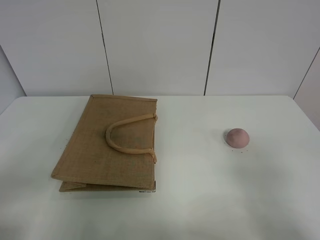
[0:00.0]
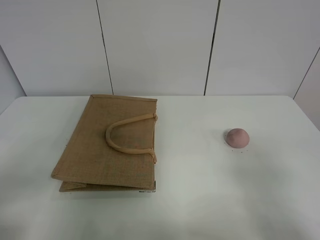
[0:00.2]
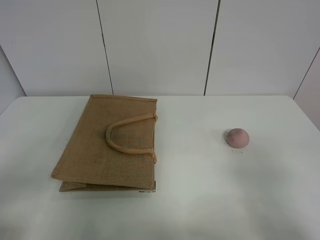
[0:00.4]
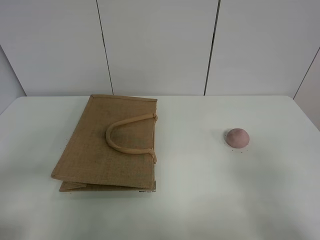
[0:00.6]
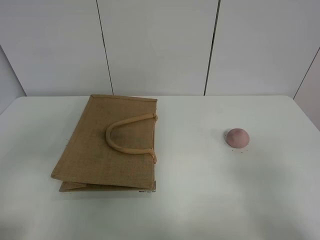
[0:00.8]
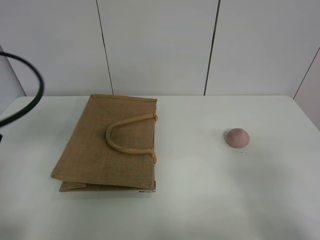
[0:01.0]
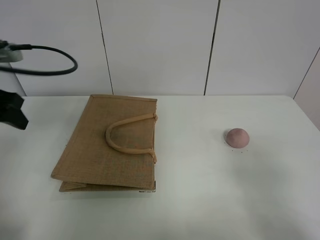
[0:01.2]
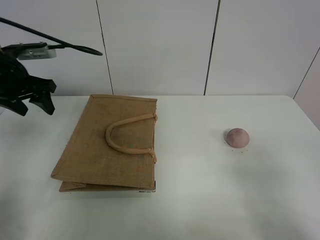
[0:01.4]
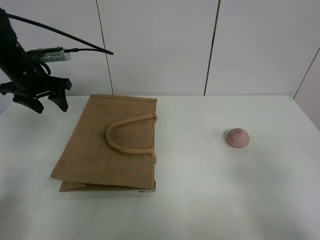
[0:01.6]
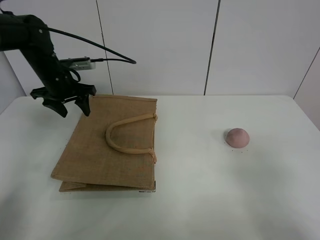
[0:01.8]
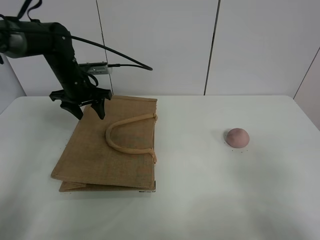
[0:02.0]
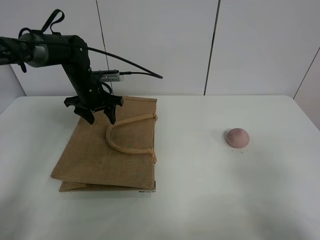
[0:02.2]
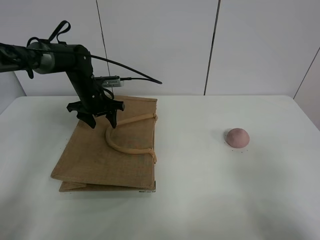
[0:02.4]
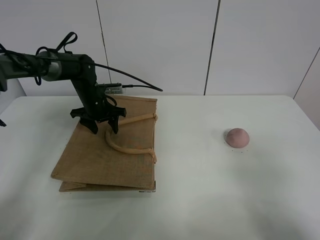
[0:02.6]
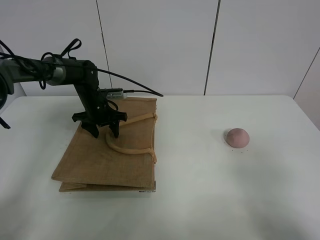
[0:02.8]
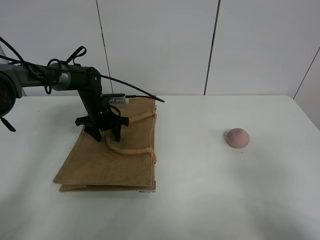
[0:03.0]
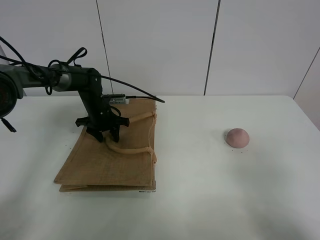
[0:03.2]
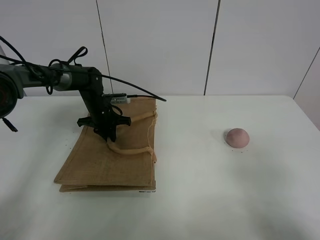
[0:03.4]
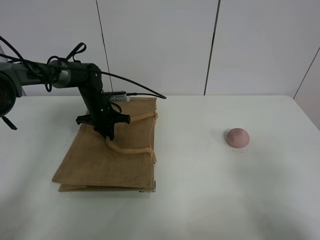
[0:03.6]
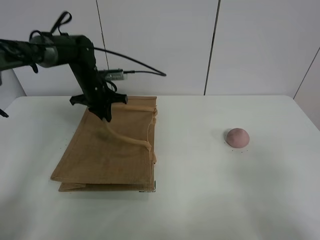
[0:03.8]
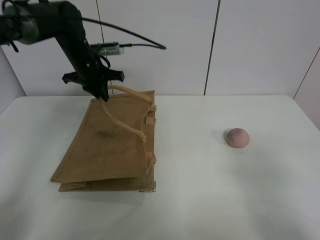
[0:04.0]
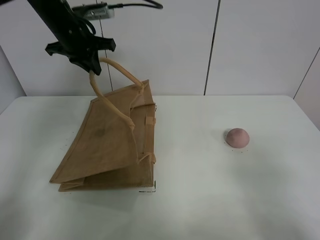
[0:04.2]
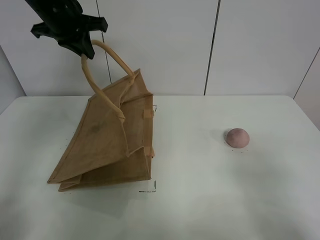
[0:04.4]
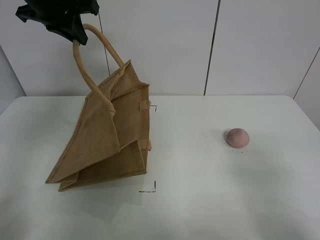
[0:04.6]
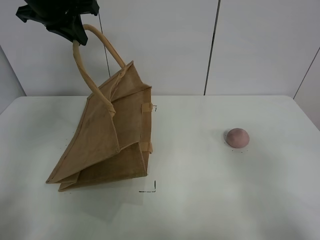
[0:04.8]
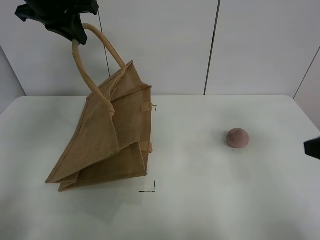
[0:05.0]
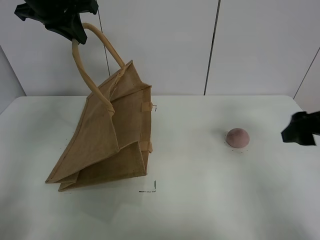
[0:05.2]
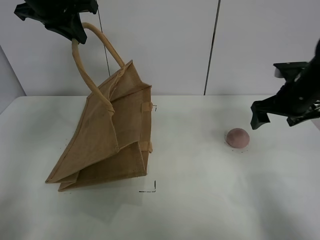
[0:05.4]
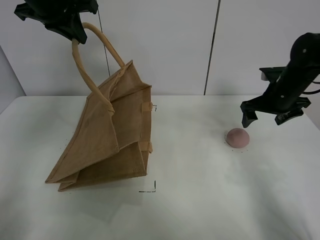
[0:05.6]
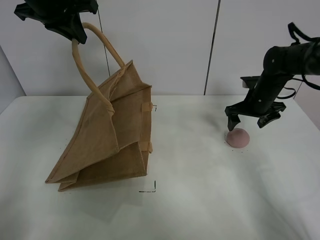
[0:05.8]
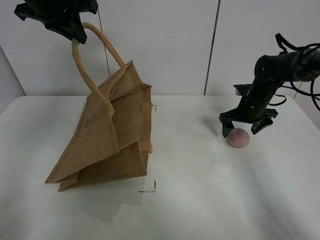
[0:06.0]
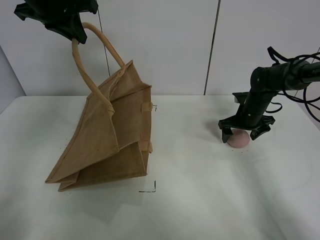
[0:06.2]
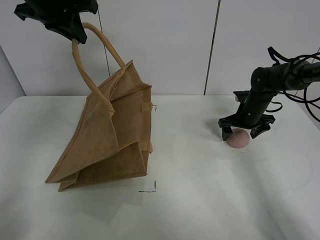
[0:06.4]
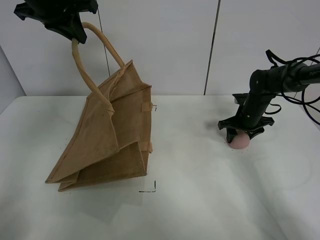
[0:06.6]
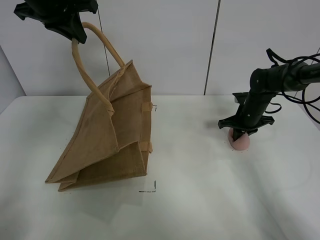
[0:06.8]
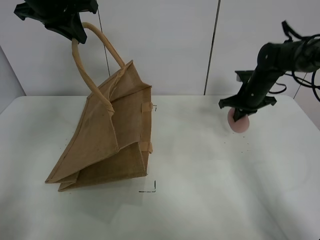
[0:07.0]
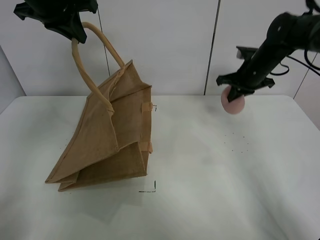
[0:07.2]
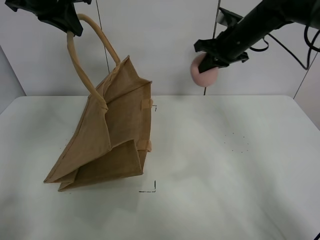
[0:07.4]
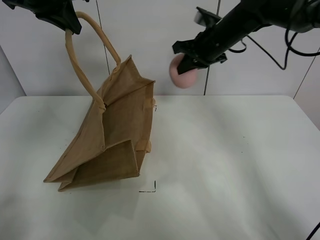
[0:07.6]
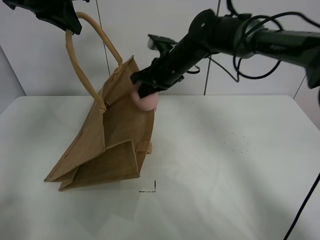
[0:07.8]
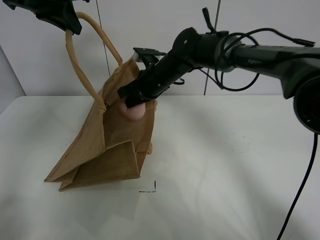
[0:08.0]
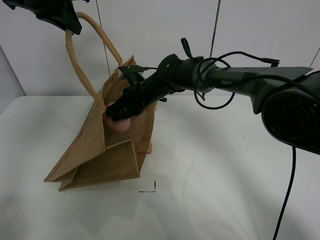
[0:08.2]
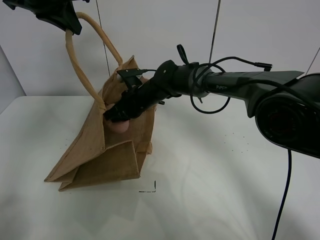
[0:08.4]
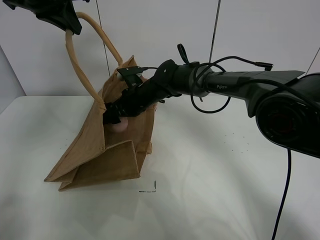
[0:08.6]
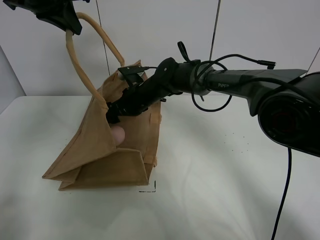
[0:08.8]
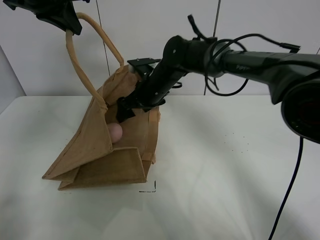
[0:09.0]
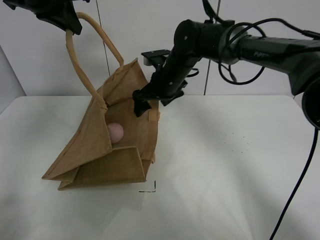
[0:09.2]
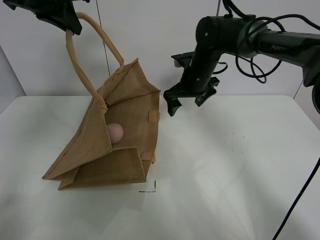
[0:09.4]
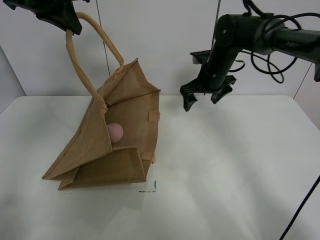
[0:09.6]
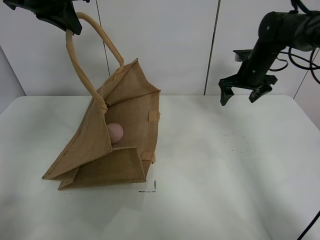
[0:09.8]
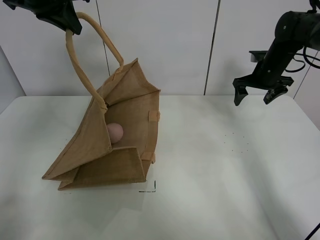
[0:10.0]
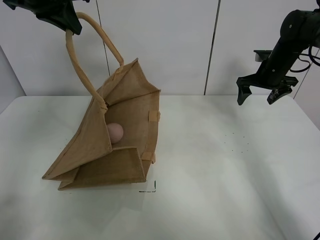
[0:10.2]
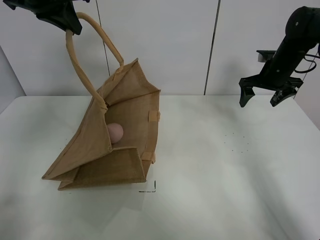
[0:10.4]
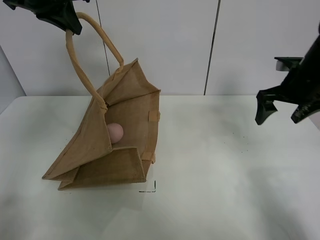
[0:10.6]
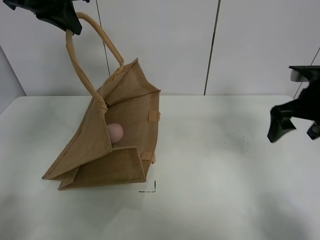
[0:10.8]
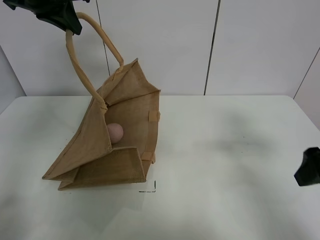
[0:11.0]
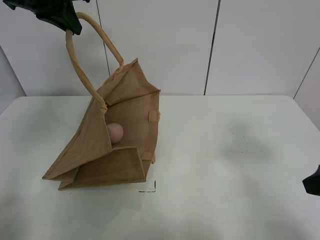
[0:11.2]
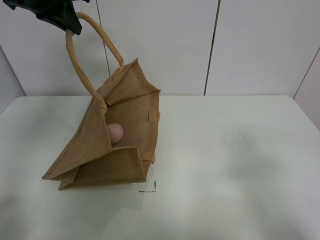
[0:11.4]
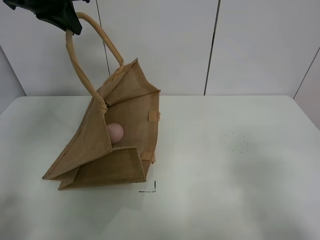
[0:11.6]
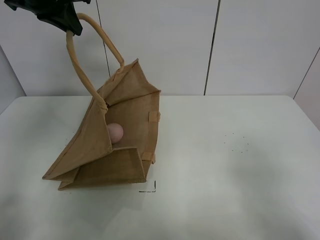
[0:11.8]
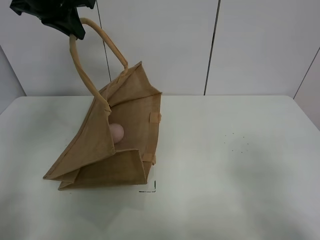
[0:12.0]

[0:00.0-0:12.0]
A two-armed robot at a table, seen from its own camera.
Task of the whole recording: open the brown linen bag and put the peach in the bag.
Step, 0:00.0 to 0:04.6: Lift the handbag with left gripper.
Step, 0:04.8 to 0:06.8: Grasp the peach with right gripper.
Step, 0:07.0 to 0:09.2: Place the peach in the handbag with right gripper.
0:00.0 to 0:01.6: The left gripper is displaced forward by some 40 cm.
0:01.6 to 0:03.0: The left gripper shifts about 20 cm downward, to the right and forward.
0:03.0 to 0:04.4: The left gripper heads upward, covering about 30 cm, and closes.
0:04.4 to 0:06.0: The right gripper heads forward, covering approximately 40 cm.
0:06.0 to 0:07.6: The right gripper moves upward and to the left, roughly 20 cm, and closes.
0:07.6 to 0:09.0: The right gripper travels to the left and downward by approximately 15 cm, and opens.
0:09.0 to 0:10.4: The right gripper is displaced to the right by some 30 cm.
0:10.4 to 0:12.0: The right gripper moves backward, about 40 cm.

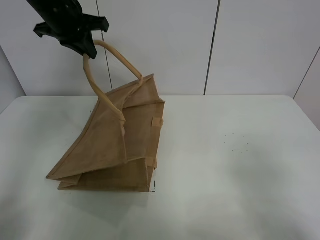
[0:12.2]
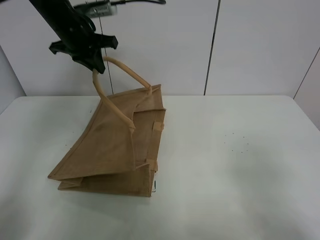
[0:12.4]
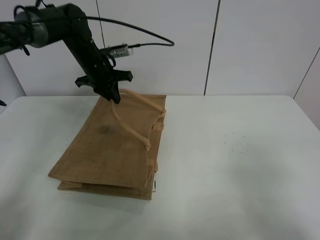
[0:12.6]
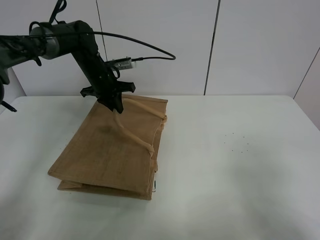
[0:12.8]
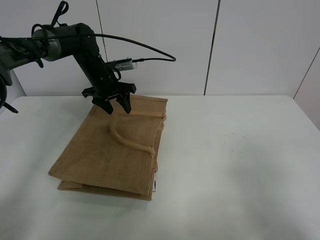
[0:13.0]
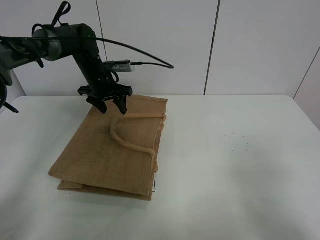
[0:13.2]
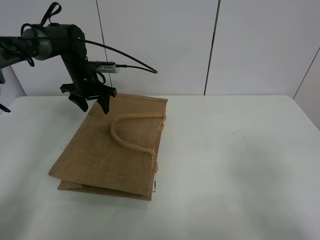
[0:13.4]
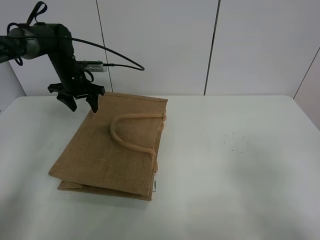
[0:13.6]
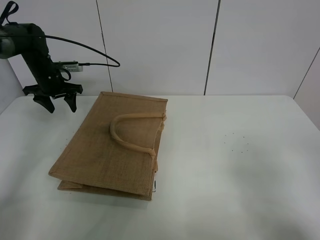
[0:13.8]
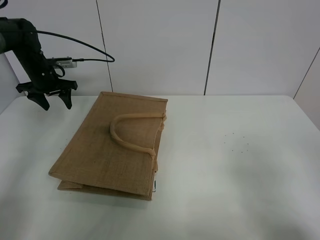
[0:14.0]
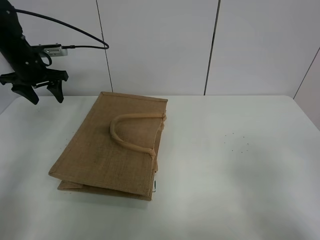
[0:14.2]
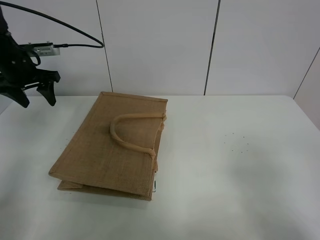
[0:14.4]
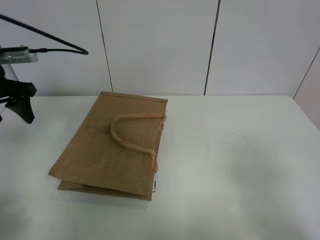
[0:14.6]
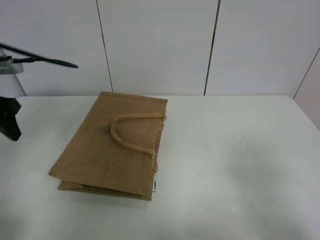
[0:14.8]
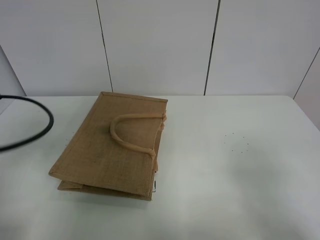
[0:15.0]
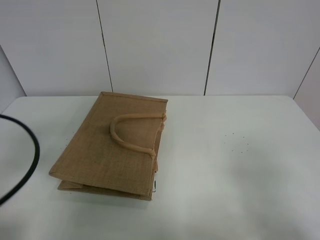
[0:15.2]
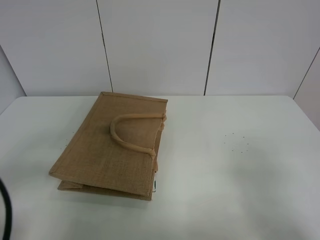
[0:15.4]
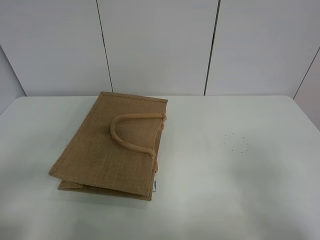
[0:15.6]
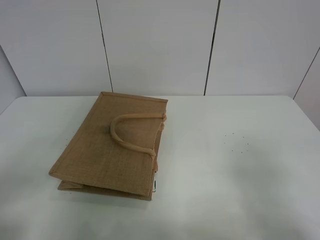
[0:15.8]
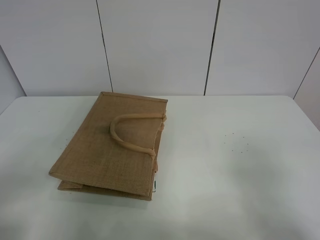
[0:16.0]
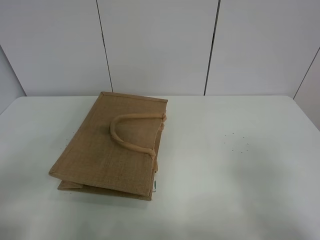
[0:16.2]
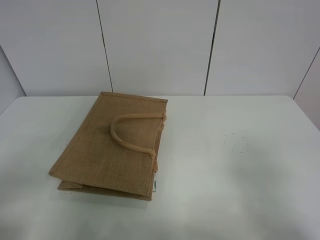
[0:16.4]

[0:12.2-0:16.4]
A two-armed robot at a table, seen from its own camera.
Task of the whole recording: open the brown linen bag and put the peach in the bag.
0:12.2 to 0:13.6: The left gripper heads downward, forward and to the left, covering roughly 20 cm, and opens.
0:13.6 to 0:15.0: The left gripper moves backward, about 35 cm.
0:15.0 to 0:16.4: The left gripper goes roughly 15 cm backward.

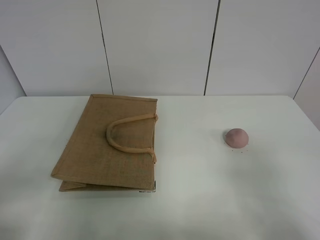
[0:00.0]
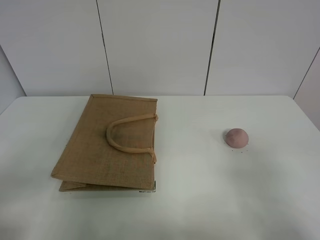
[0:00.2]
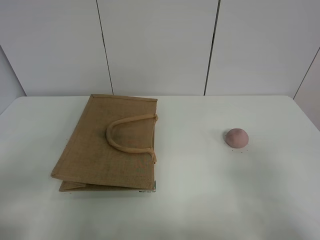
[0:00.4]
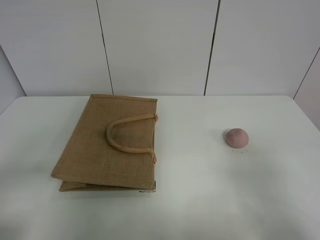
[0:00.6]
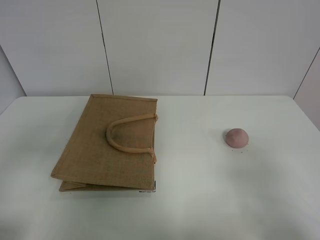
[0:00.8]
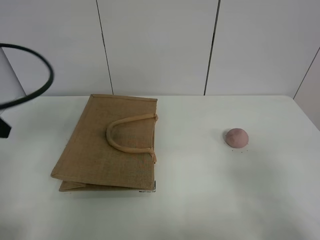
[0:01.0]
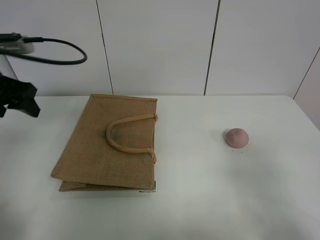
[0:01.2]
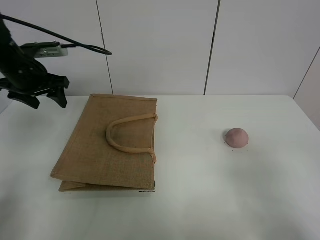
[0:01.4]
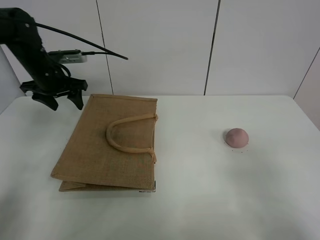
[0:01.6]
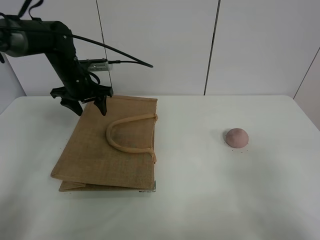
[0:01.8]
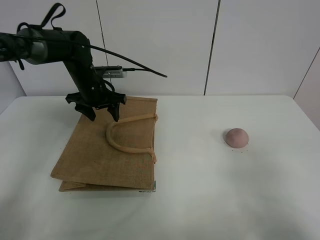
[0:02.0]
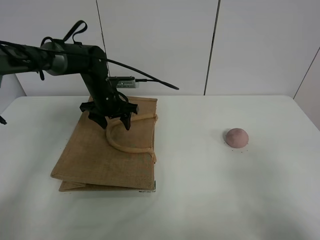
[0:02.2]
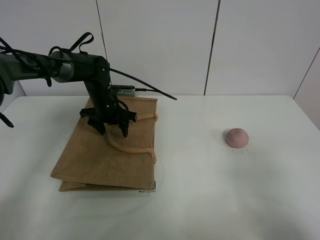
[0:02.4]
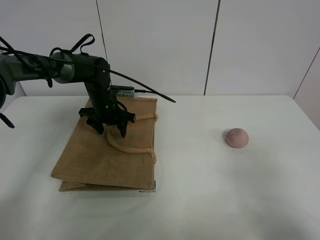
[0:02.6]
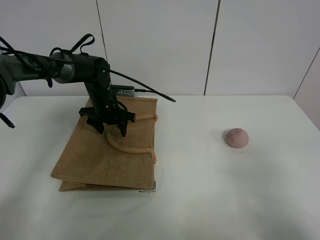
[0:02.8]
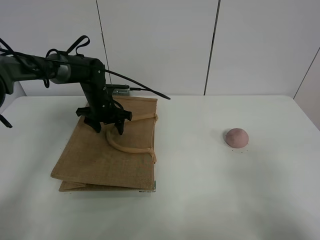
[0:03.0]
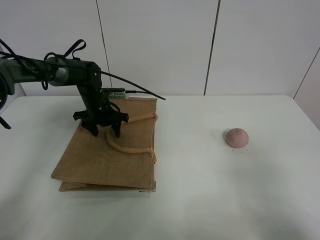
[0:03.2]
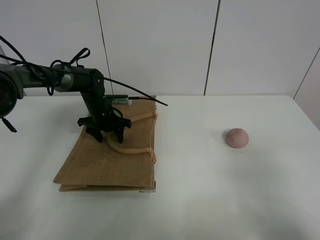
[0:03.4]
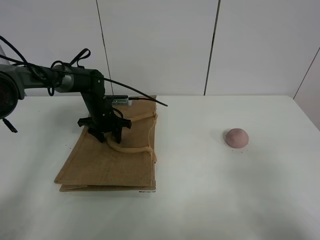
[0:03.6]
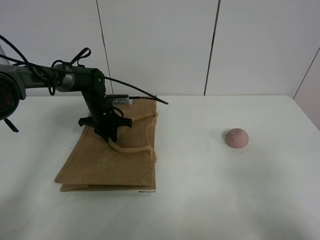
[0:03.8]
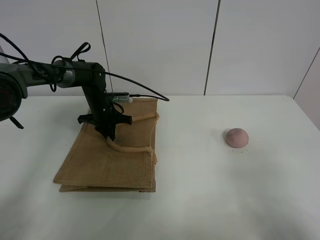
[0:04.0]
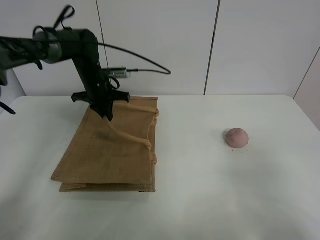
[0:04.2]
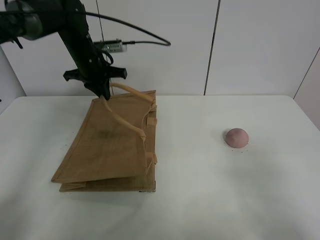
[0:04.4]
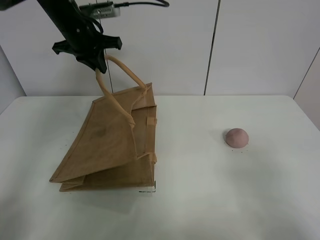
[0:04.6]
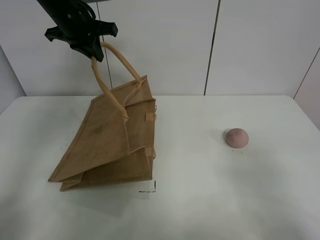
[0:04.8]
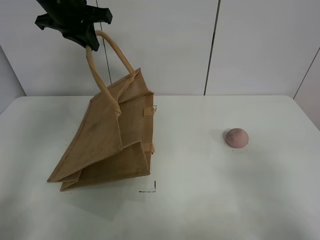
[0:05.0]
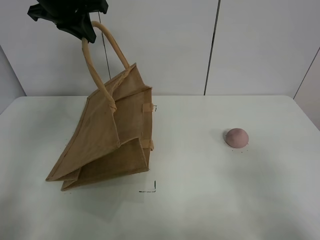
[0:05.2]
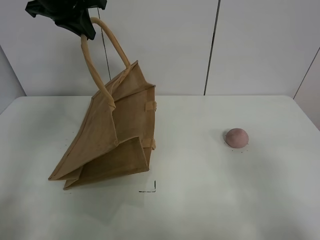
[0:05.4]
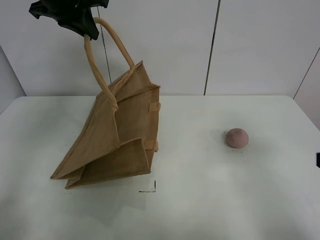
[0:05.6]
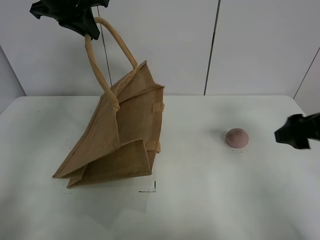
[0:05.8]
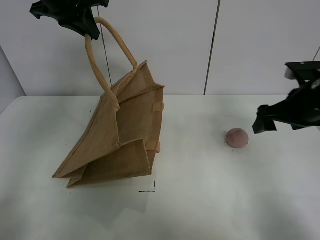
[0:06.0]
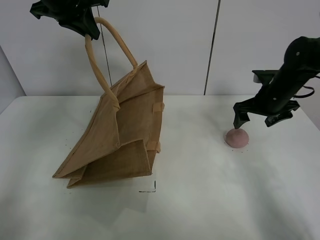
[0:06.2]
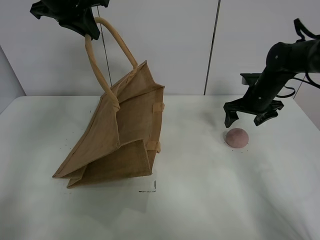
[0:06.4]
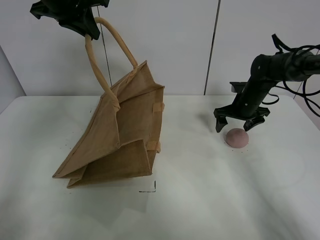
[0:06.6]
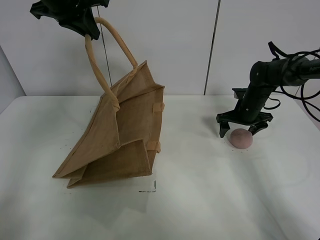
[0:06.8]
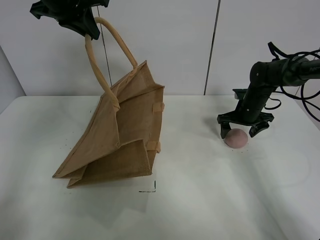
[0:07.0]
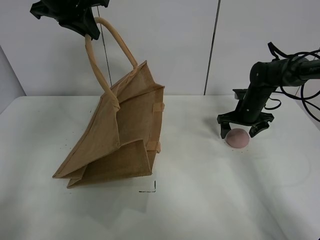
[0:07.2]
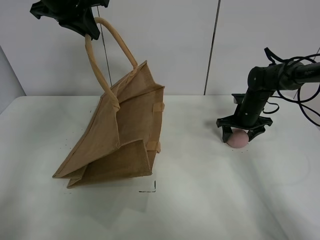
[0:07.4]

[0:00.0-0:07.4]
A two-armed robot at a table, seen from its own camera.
Task of the whole recording: open the brown linen bag and put the peach in the bag.
Step, 0:00.0 to 0:05.2: Lift the handbag with left gripper.
0:00.0 to 0:01.4: The left gripper is displaced forward by roughly 40 cm.
0:01.4 to 0:03.0: The left gripper travels downward, to the right and forward by approximately 20 cm.
0:03.0 to 0:04.4: The left gripper moves upward, some 15 cm, and closes its fingers.
0:04.4 to 0:06.0: The left gripper heads upward and backward, covering roughly 15 cm, while the right gripper heads forward, covering roughly 30 cm.
0:06.0 to 0:07.4: The right gripper shifts some 20 cm forward and downward.
